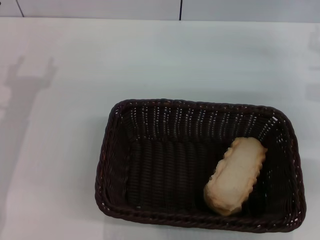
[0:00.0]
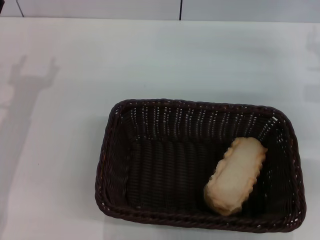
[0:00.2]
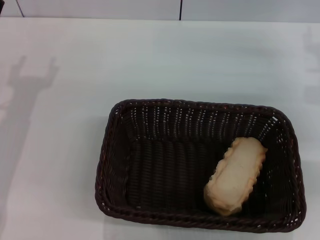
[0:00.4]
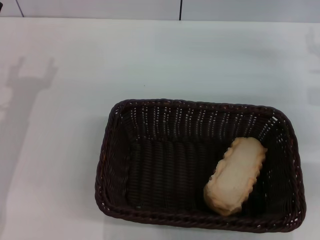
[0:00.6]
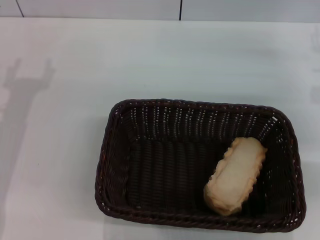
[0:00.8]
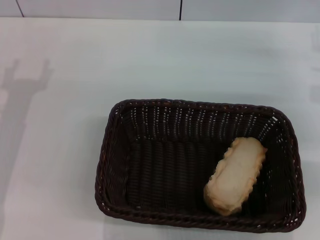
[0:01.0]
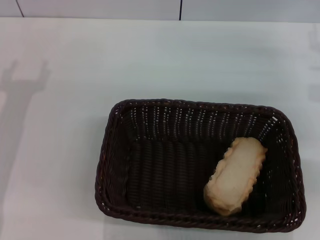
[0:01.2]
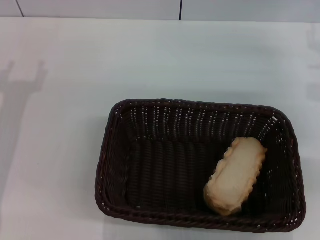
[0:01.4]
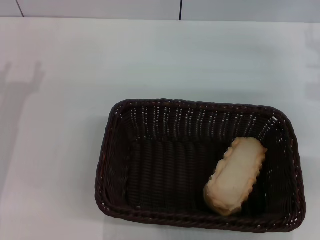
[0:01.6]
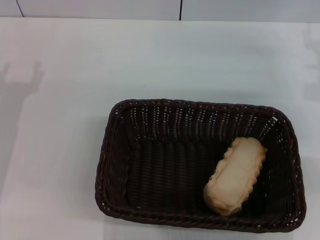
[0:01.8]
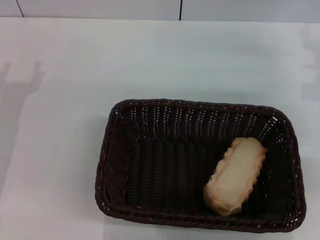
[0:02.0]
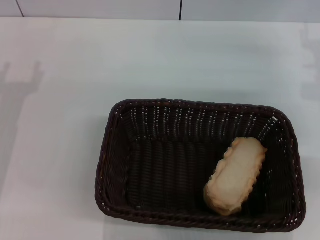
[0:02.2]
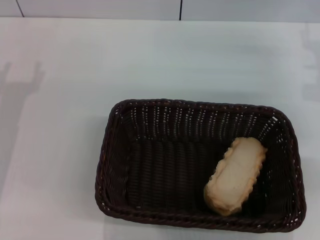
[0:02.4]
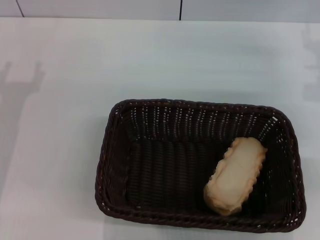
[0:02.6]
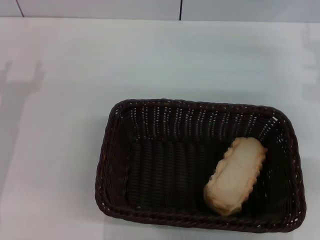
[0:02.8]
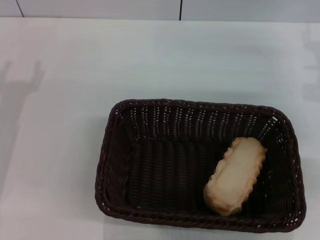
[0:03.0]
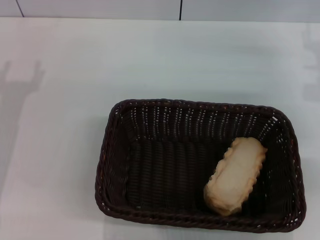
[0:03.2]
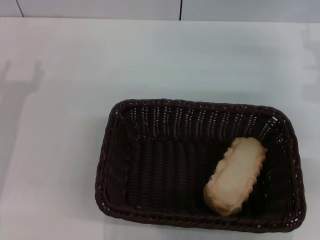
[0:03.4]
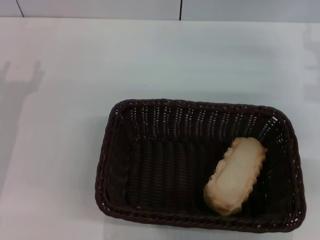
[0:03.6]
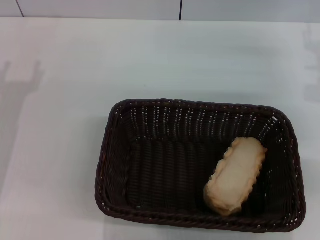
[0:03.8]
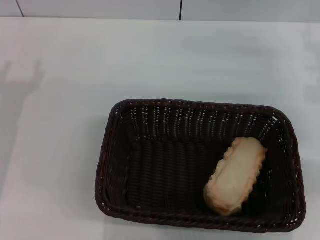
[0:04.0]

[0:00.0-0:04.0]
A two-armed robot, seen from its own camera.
0:01.4 to 0:04.0: Both grippers stay put.
